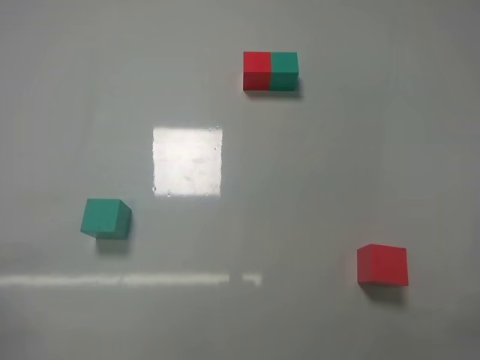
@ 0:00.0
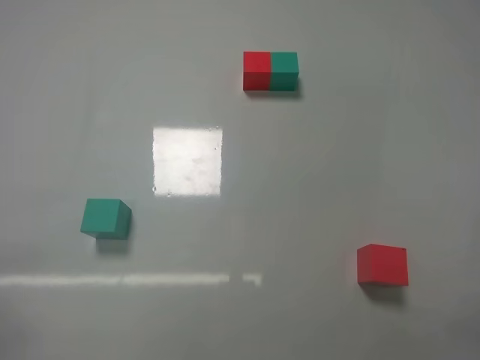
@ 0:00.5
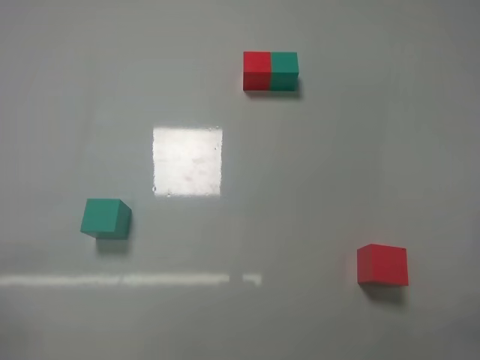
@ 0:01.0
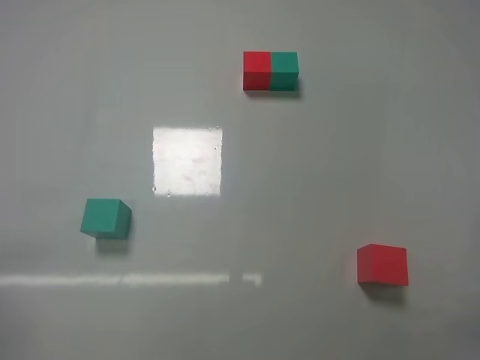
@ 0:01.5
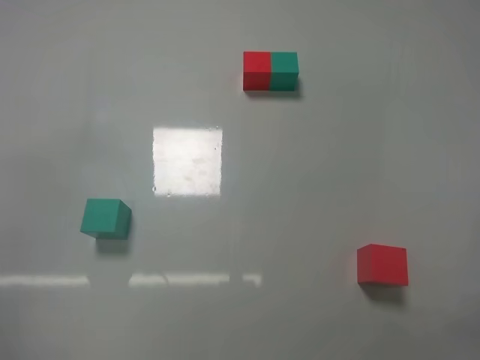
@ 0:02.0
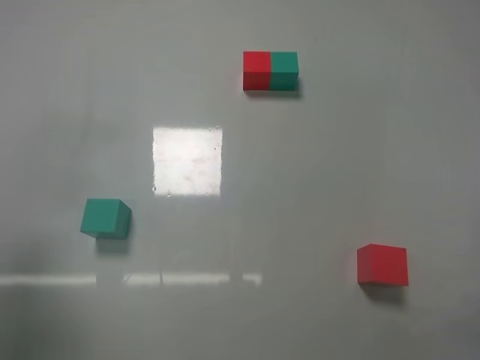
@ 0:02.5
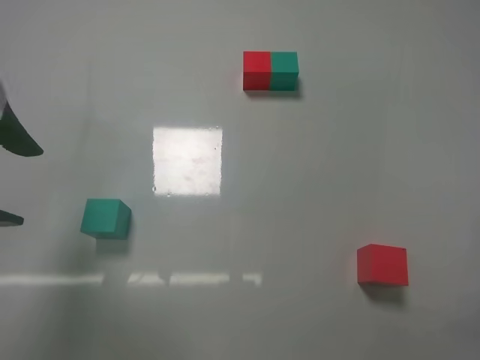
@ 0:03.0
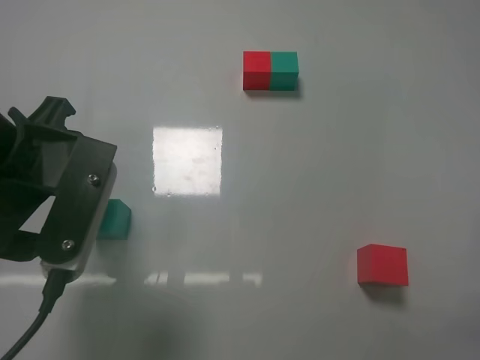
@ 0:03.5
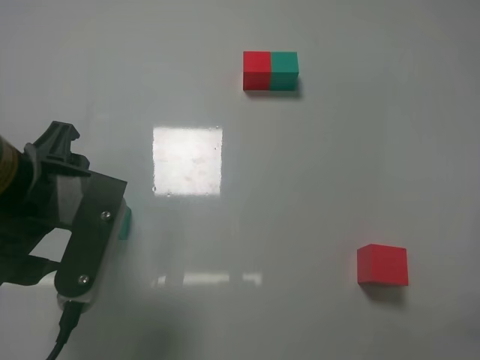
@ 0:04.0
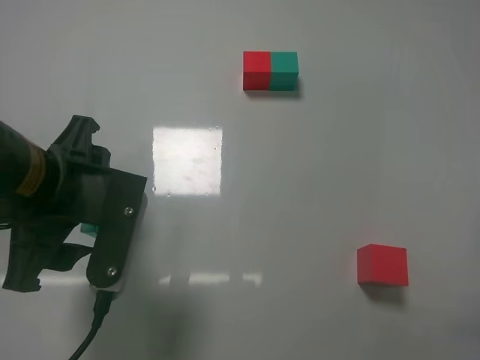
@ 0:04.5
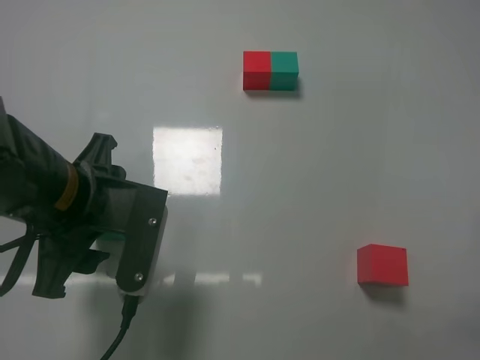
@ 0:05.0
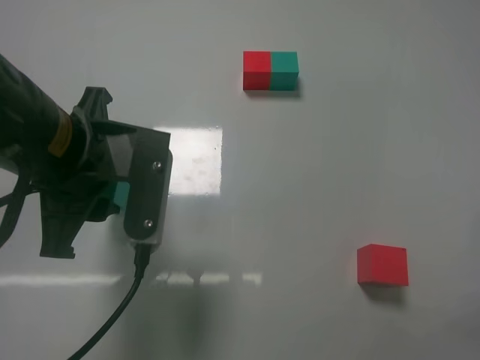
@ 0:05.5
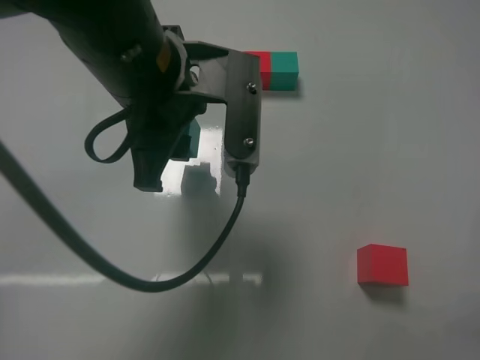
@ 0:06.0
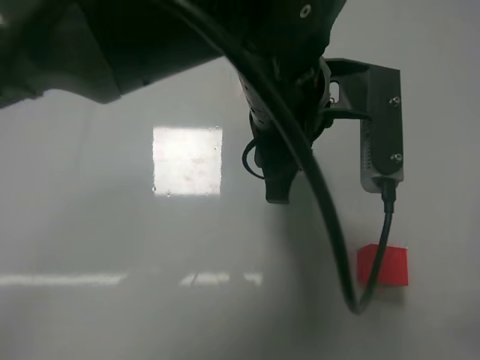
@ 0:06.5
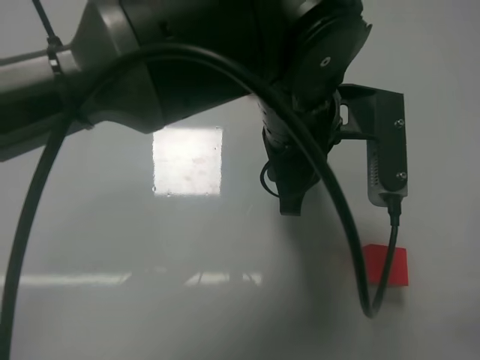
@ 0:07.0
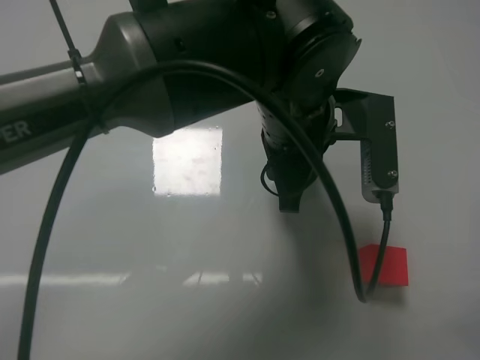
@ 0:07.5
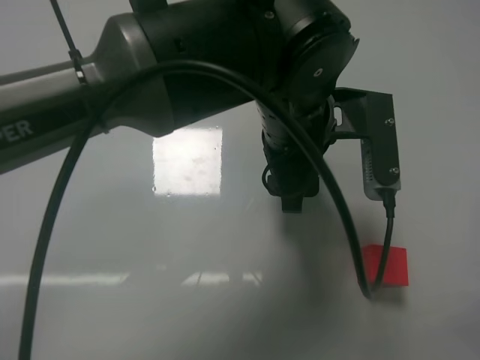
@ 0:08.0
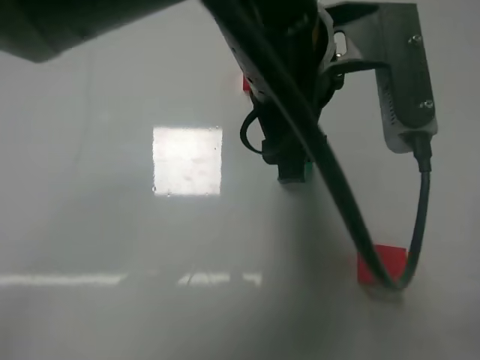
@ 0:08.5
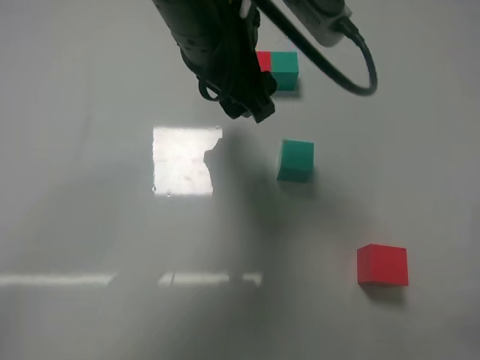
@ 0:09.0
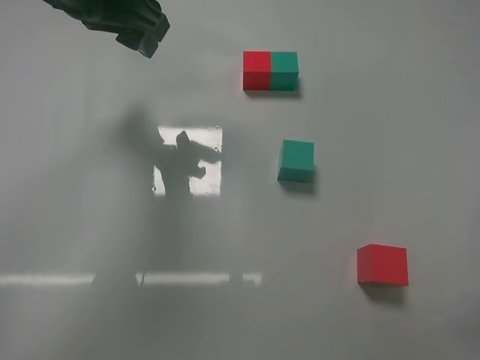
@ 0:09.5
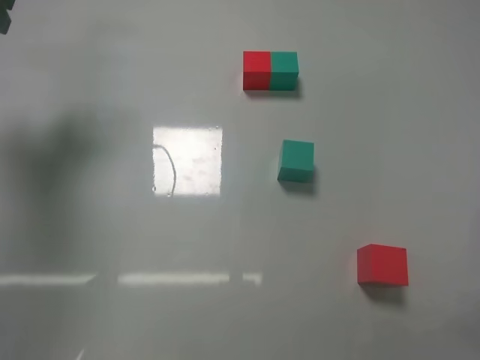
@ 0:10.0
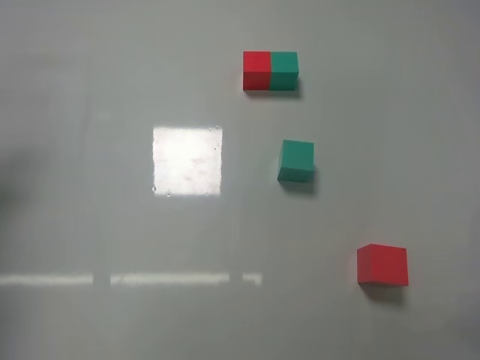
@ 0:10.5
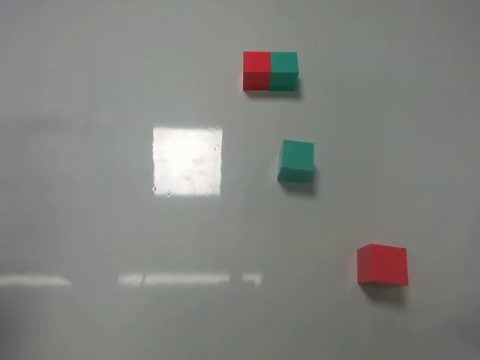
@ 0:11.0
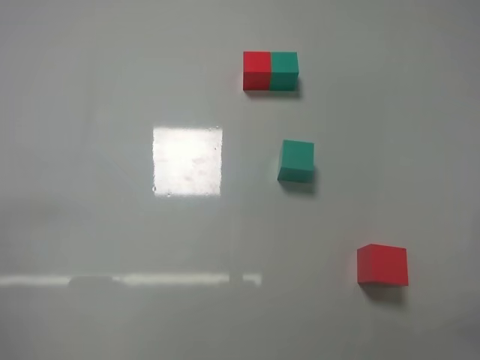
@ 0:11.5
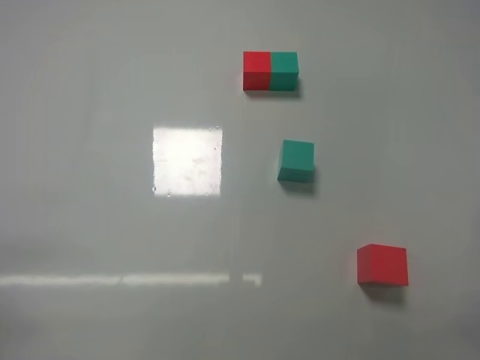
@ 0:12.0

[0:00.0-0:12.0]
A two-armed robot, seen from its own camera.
Task of the whole recording: According to the building block template in front, assemble the scattered blocks together.
Step, 0:00.0 to 0:05.0: Grasp the green block with left gripper.
Step, 0:05.5 to 0:08.0: Adjust the position of the cube with the left gripper.
0:02.0 to 0:04.0: The left gripper shifts roughly 20 cm to the right, forward and downward.
0:04.0 to 0:06.0: The left gripper moves to the right, upward and forward, some 15 cm, and closes its fingers.
0:06.0 to 0:08.0: The left gripper heads to the right, covering roughly 10 cm, and opens its fingers.
0:08.0 to 0:10.0: The left gripper goes about 40 cm to the left and upward.
0:10.0 to 0:12.0: The left gripper heads backward and downward, covering approximately 35 cm.

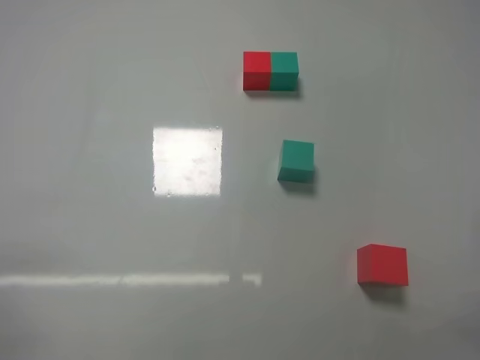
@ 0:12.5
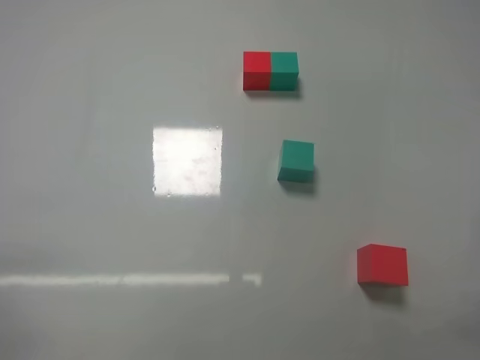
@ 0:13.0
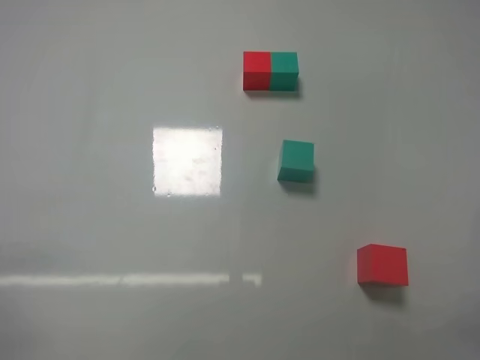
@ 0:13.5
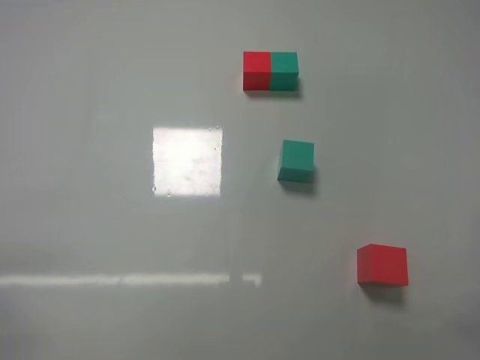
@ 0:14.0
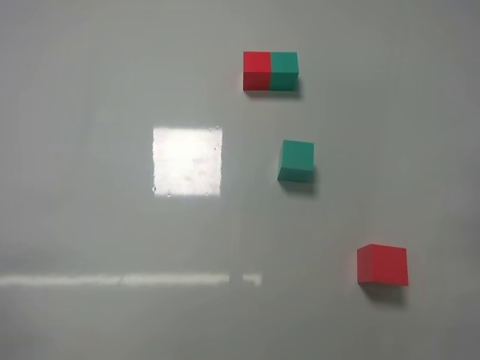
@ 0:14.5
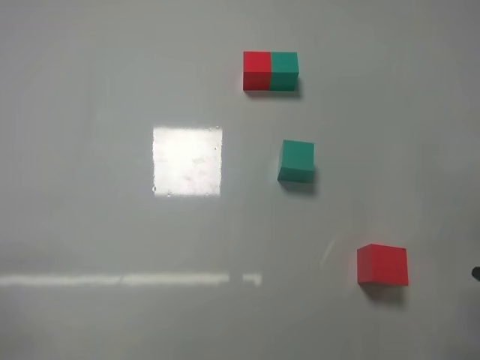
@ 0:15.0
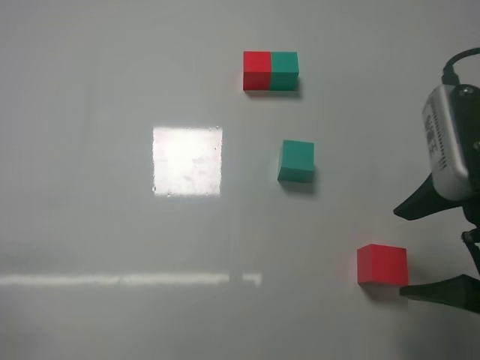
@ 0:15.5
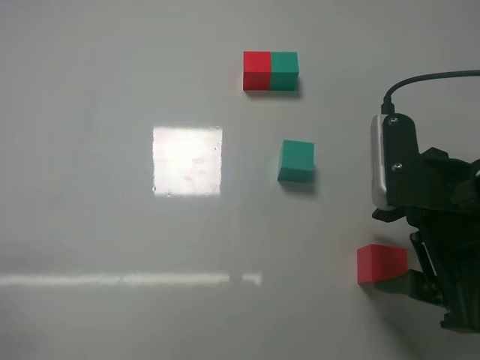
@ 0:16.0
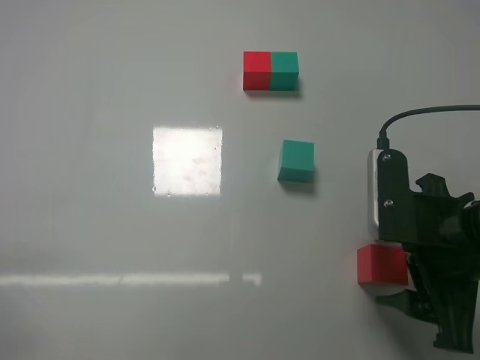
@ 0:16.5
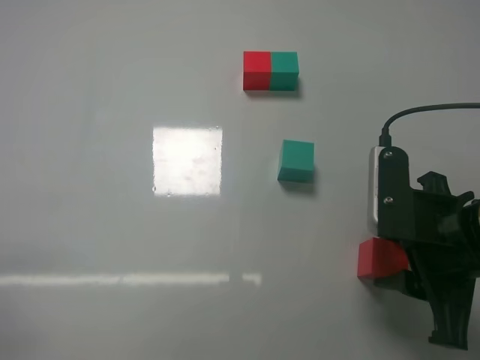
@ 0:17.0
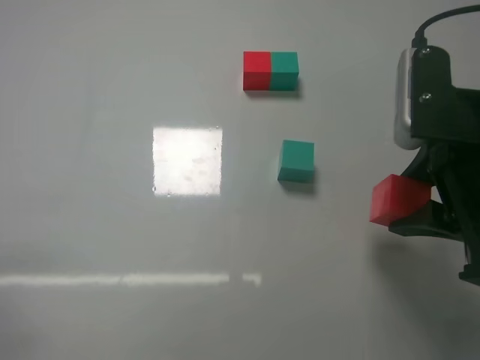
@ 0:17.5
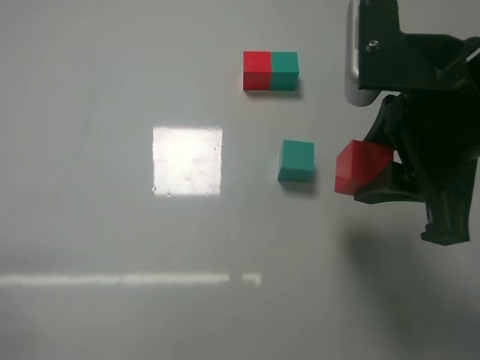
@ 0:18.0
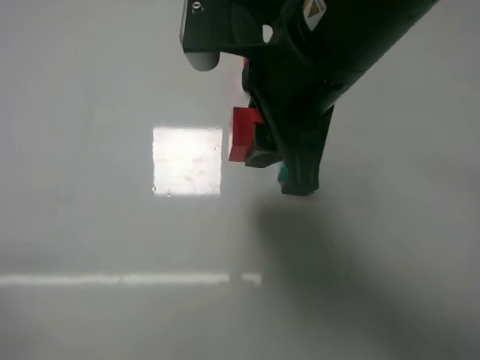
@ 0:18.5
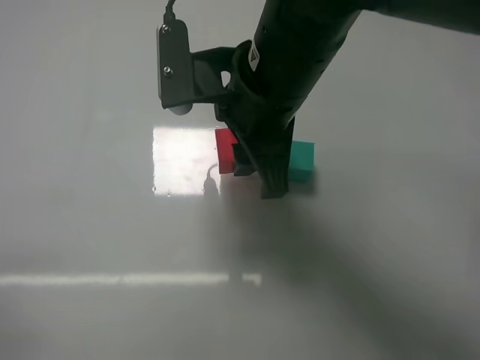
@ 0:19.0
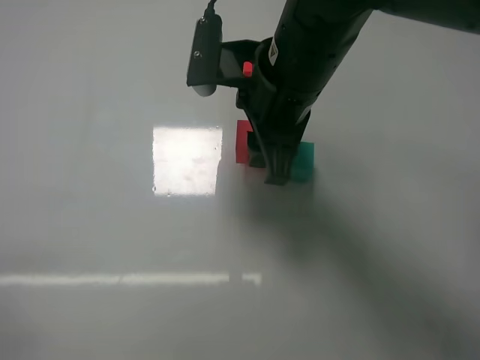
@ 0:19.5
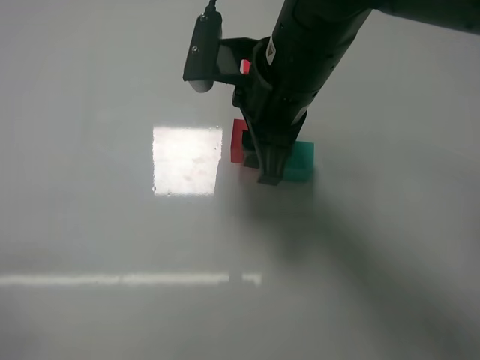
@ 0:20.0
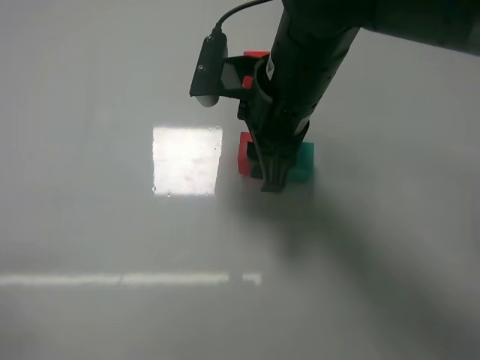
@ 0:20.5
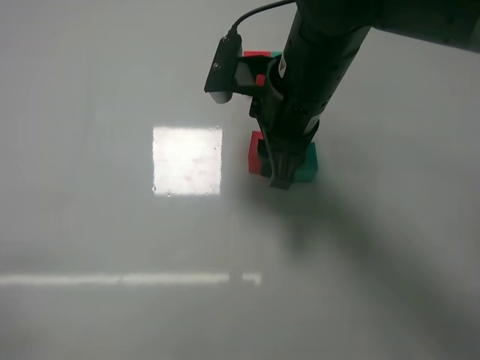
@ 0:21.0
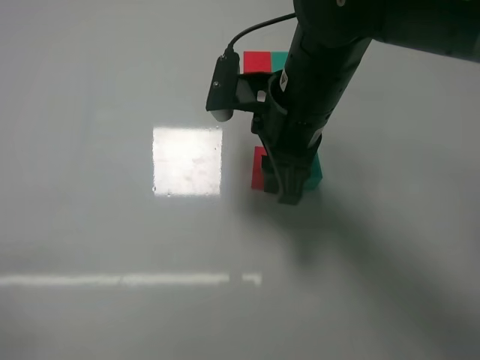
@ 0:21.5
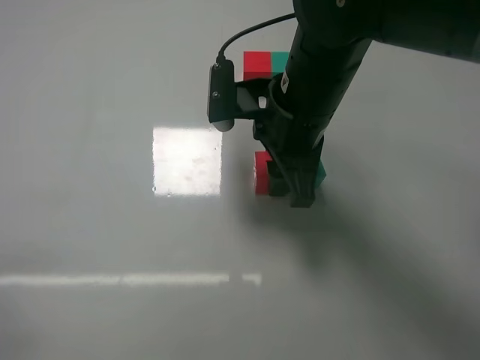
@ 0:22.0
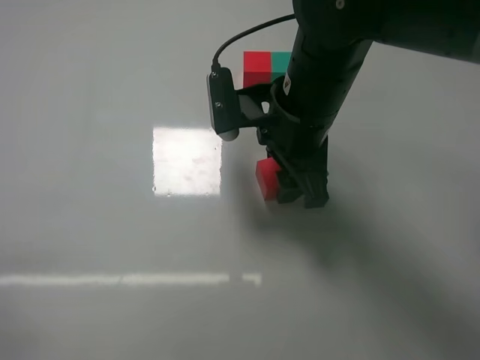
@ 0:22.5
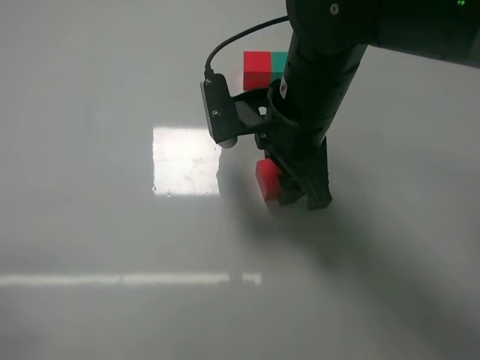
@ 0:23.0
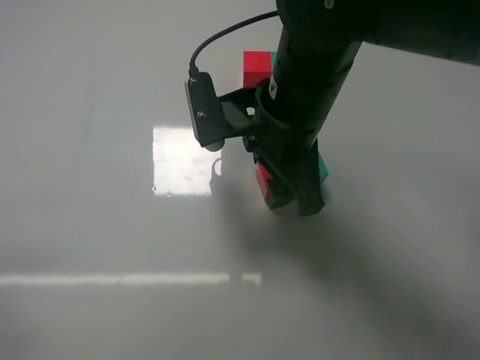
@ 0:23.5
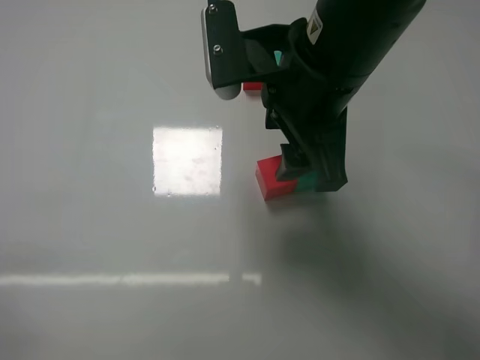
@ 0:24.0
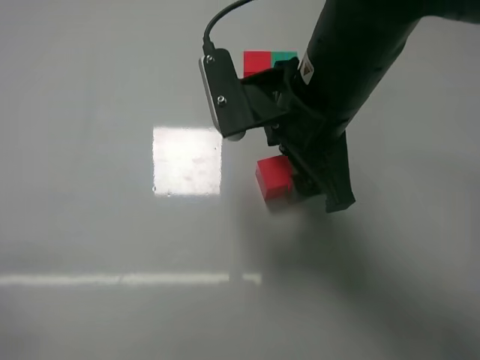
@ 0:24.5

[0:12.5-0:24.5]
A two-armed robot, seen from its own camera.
Task of the whole recording: According to the building block template in front, assemble the scattered blocks together.
Step, 0:12.5 to 0:16.5: Grasp the red block with right gripper.
Step, 0:17.0 to 0:23.5: Put the red cube on the left of the green cube with the right gripper.
0:14.5 to 0:16.5: The right gripper moves forward, downward and to the left, about 20 cm, and opens.
0:16.5 to 0:18.5: The right gripper shifts about 20 cm to the left and upward, and closes up.
0:18.5 to 0:20.5: The right gripper moves forward, about 5 cm.
0:20.5 to 0:22.5: The right gripper opens.

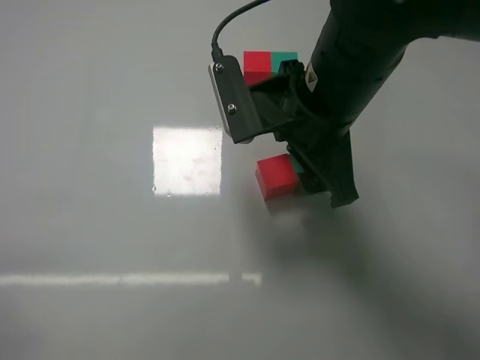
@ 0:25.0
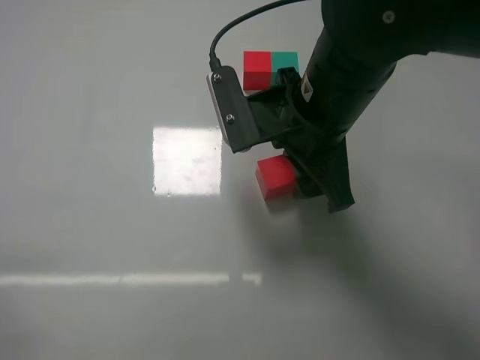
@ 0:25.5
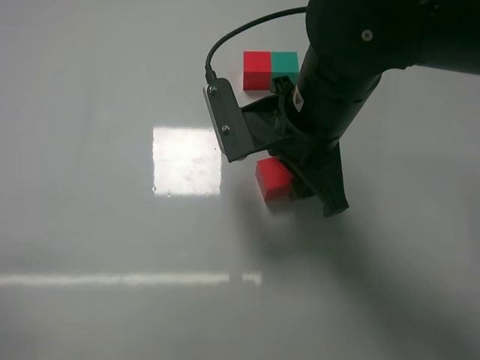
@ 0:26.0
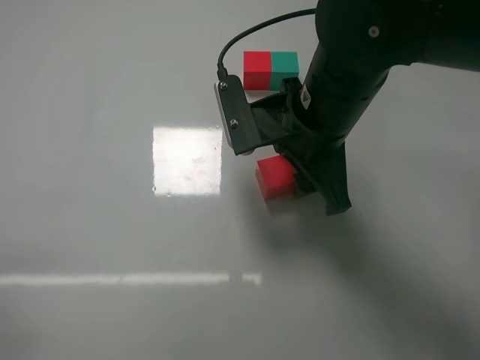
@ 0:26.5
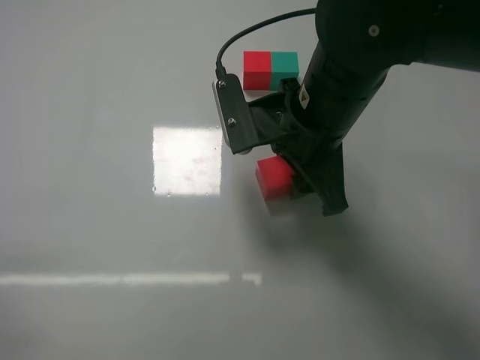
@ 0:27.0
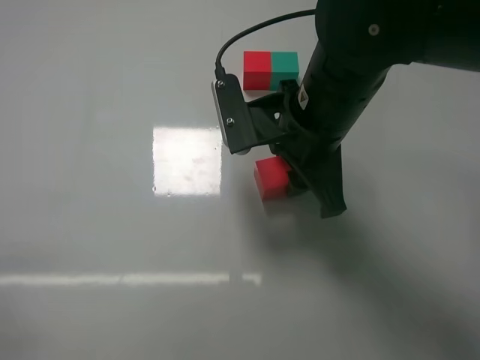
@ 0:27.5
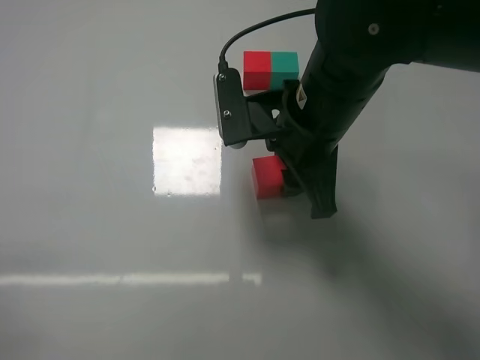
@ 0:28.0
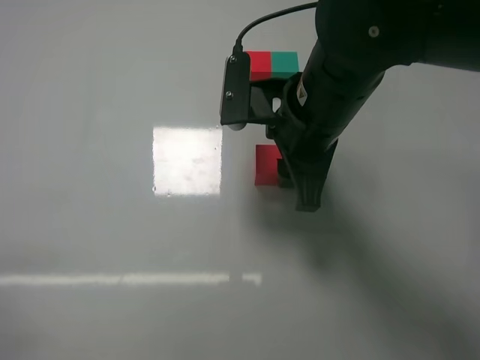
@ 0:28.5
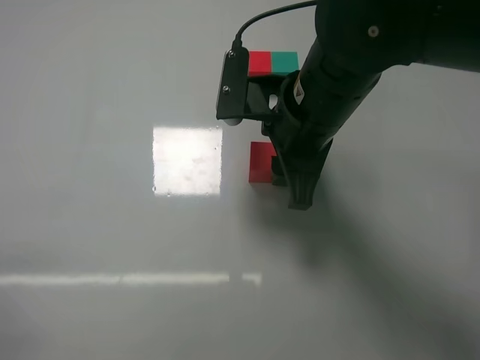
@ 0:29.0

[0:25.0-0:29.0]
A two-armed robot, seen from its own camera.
Task of the whole recording: According to the building block template in front, assemble the scattered blocks together.
0:25.0 to 0:27.0: The right gripper closes up.
0:27.0 to 0:29.0: The right gripper closes.
